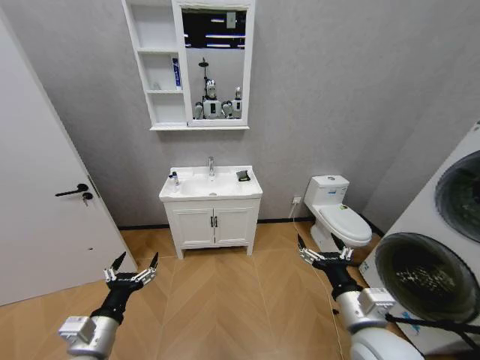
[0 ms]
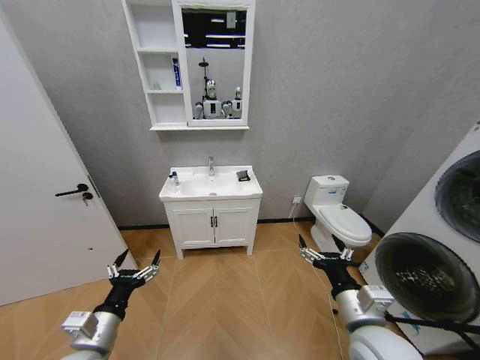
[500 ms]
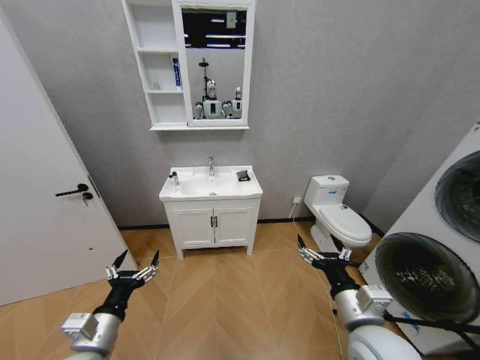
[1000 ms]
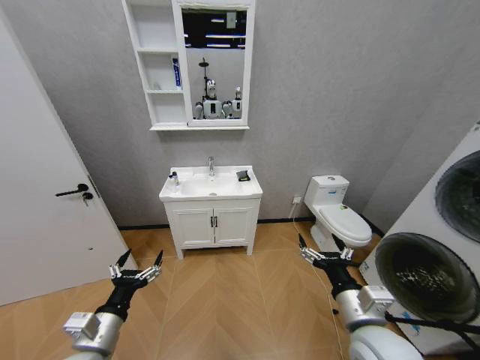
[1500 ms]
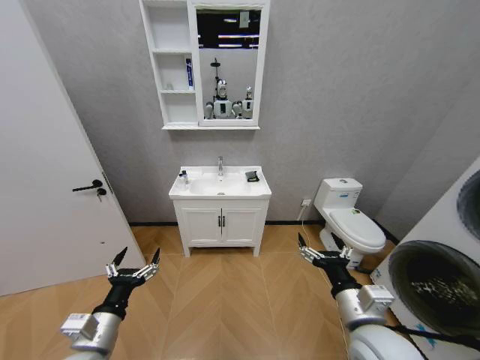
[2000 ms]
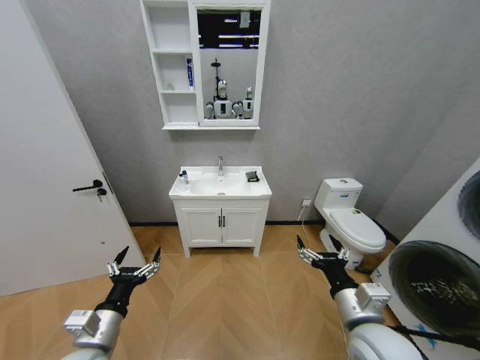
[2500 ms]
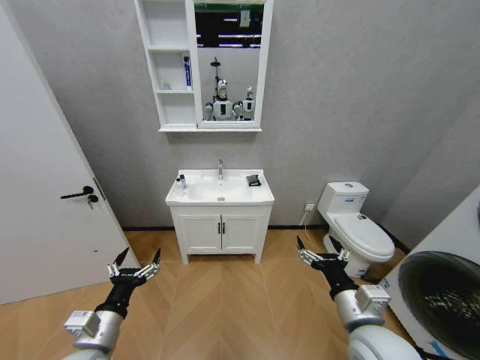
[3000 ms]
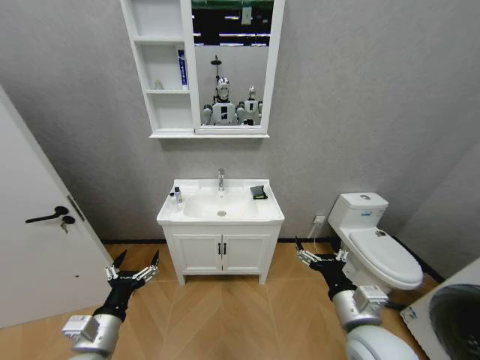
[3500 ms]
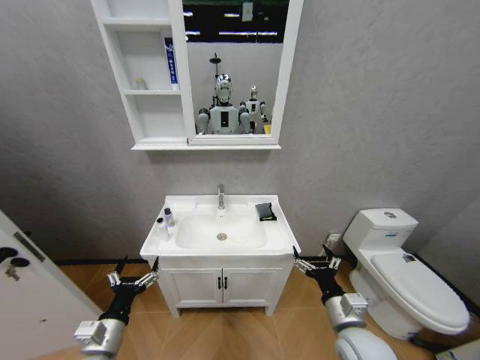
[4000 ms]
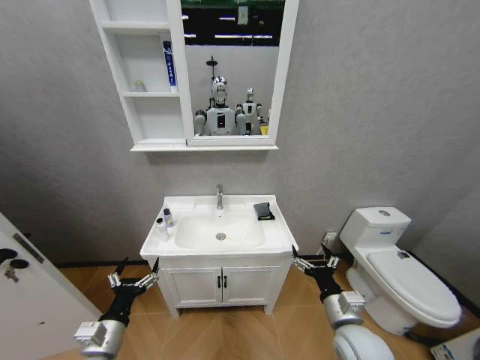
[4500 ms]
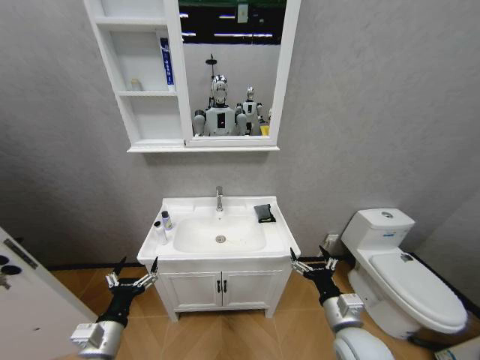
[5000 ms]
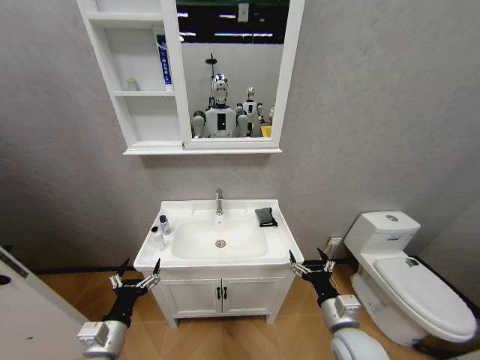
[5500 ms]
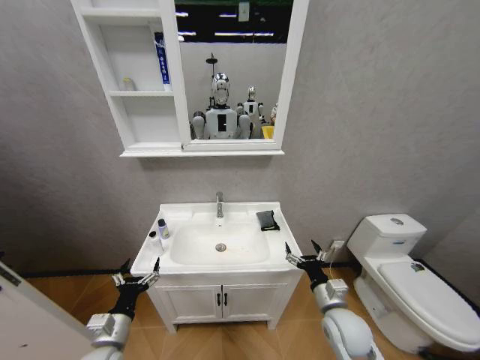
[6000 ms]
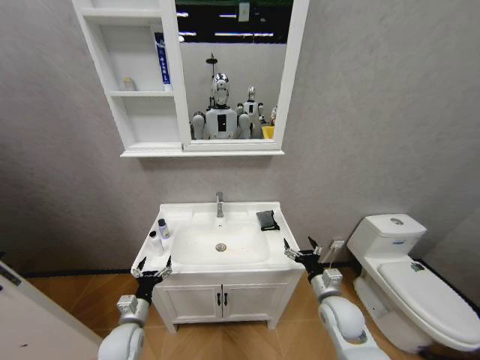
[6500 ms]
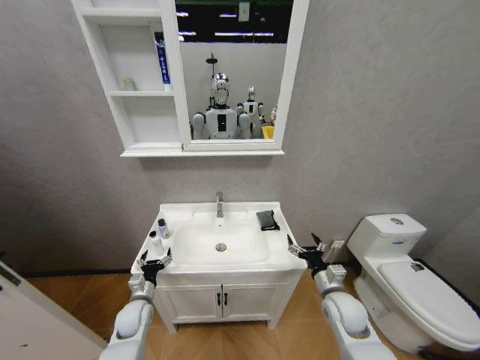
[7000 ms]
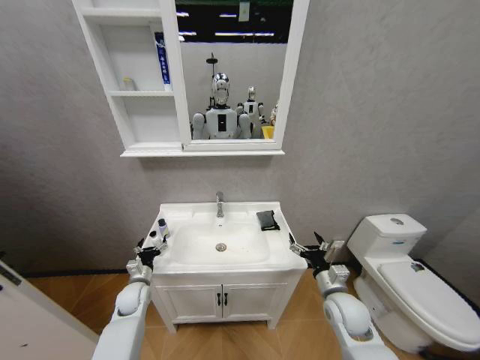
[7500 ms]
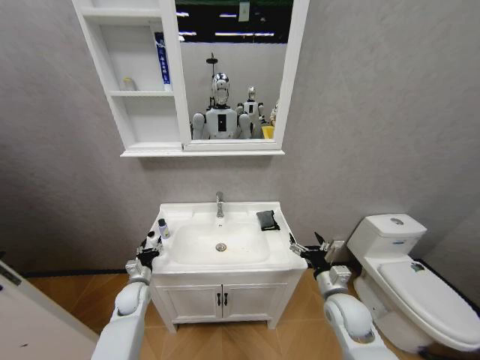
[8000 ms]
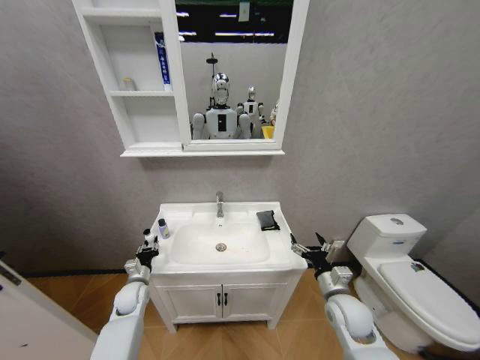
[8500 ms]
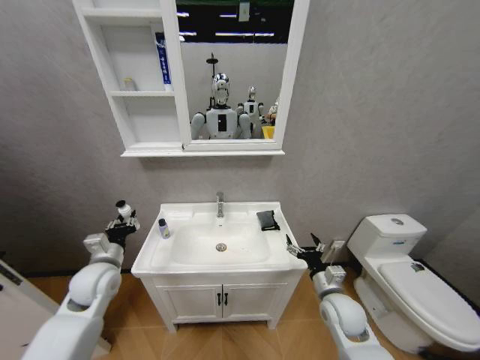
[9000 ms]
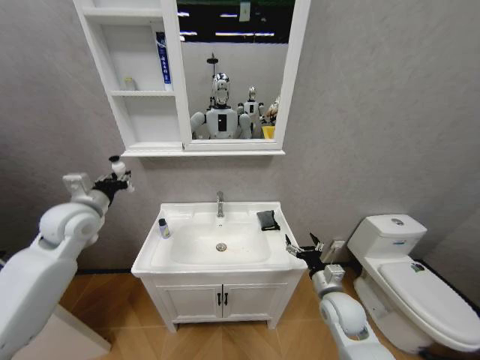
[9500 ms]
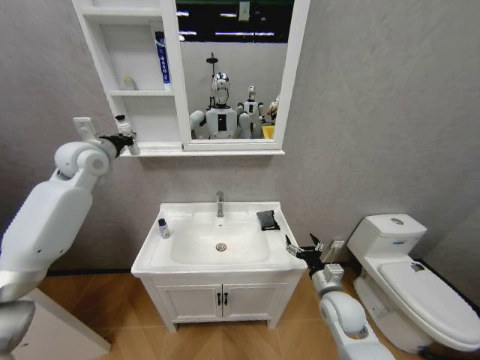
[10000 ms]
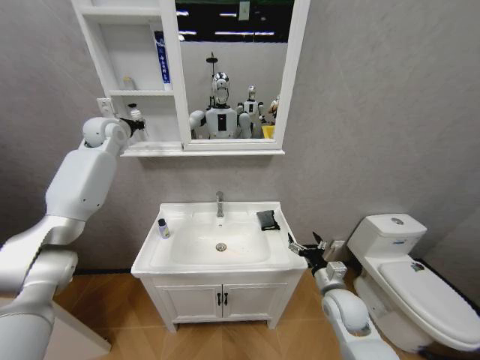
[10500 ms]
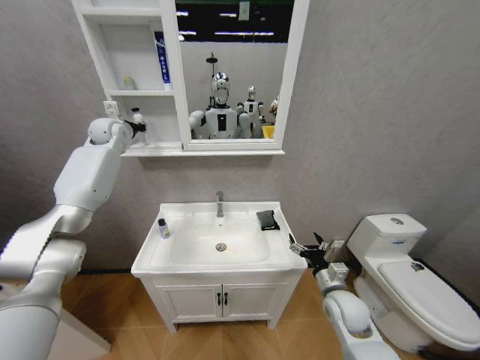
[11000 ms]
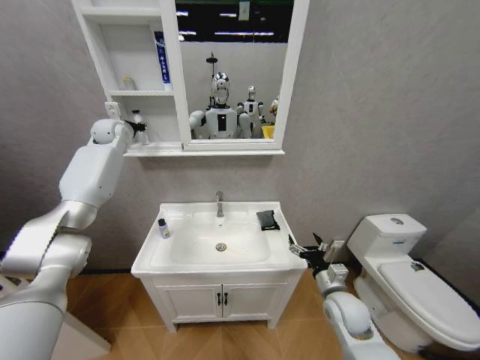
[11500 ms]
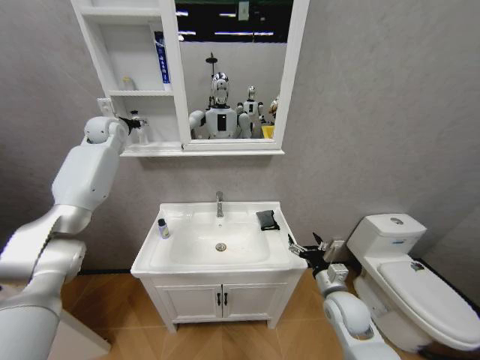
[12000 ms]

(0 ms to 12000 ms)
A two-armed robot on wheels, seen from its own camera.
Task of the whole recording: Move facial cleanser and shampoo from washbasin to cabinet, then wipe washbasin with towel.
2000 ms - 4000 ms: The right gripper goes about 10 cm downward.
4000 ms - 6000 ms: The right gripper changes place by some 5 cm.
6000 ms - 8000 ms: The left gripper shifts roughly 20 cm forward and downward, and closes its fingers.
8000 ms - 10000 ms: The left gripper shifts roughly 40 cm upward, and closes.
10000 ms - 12000 ms: The left gripper moves forward, about 15 cm, and opens its fingers.

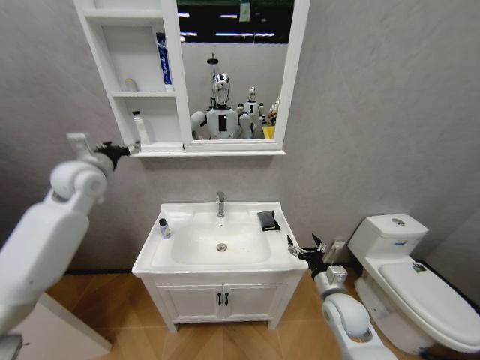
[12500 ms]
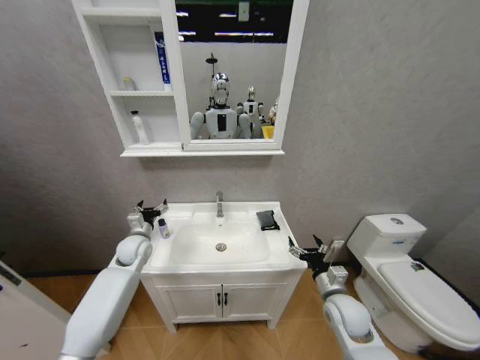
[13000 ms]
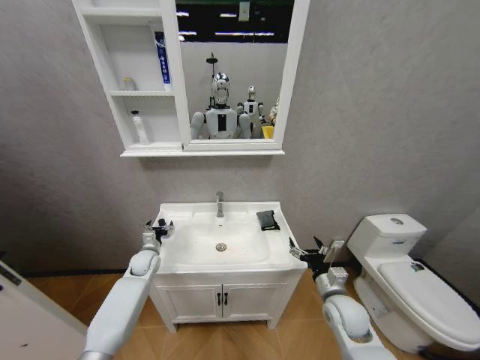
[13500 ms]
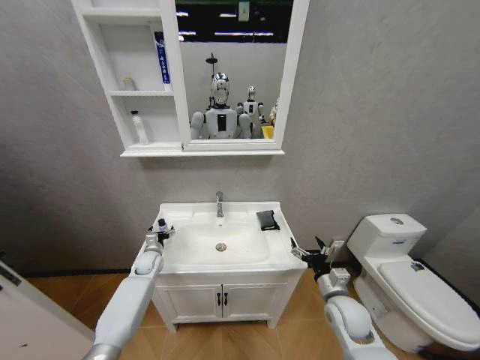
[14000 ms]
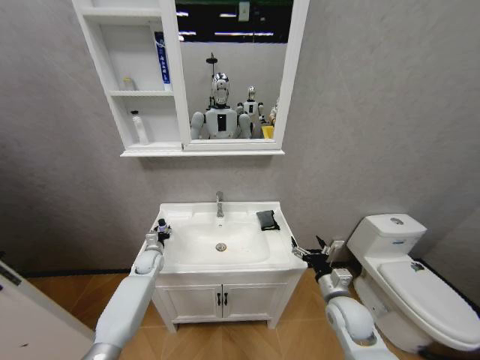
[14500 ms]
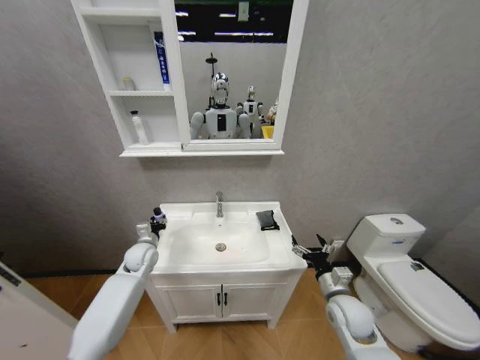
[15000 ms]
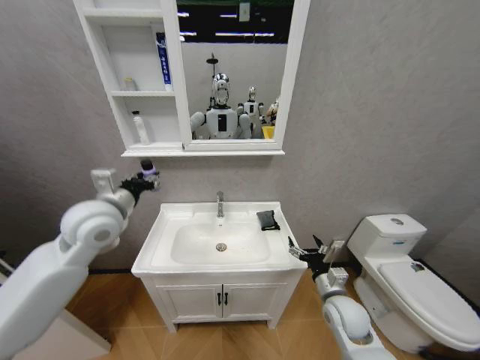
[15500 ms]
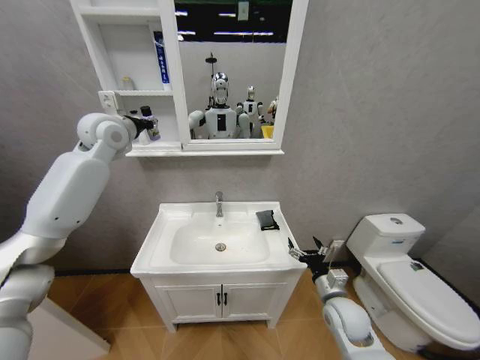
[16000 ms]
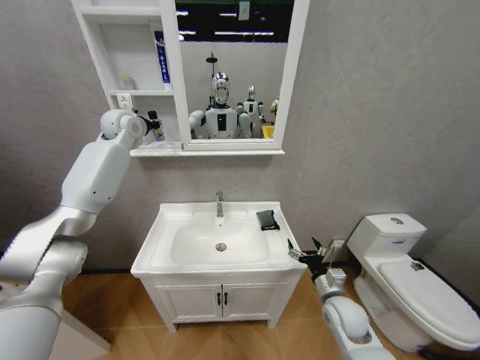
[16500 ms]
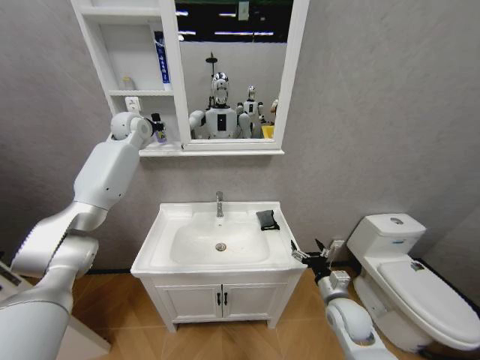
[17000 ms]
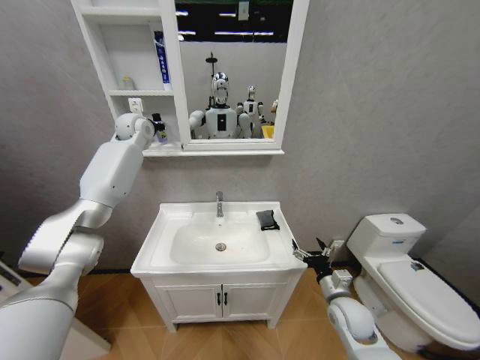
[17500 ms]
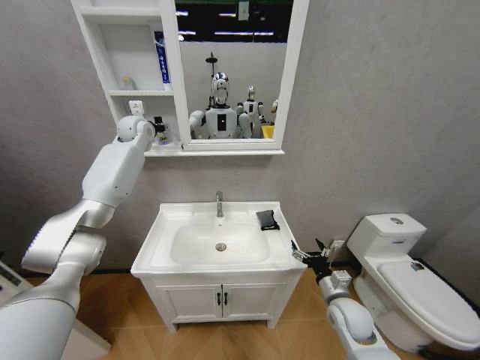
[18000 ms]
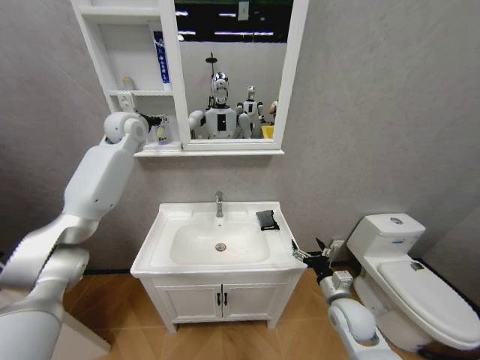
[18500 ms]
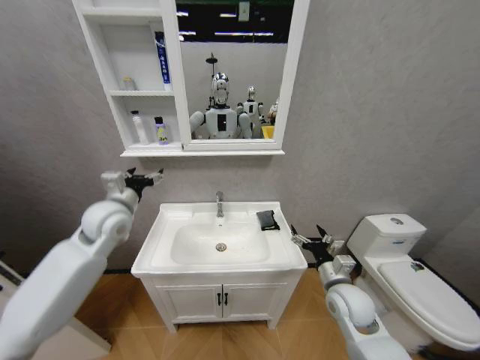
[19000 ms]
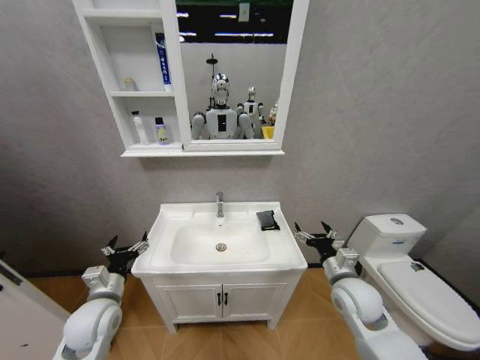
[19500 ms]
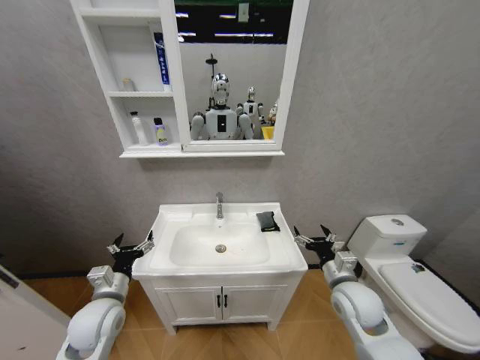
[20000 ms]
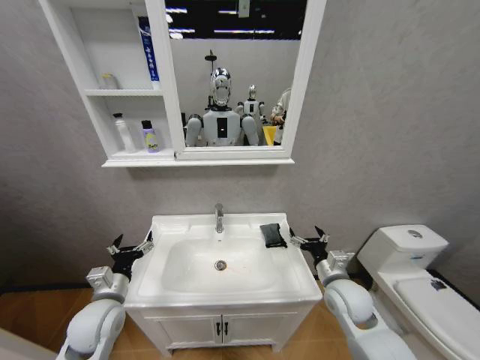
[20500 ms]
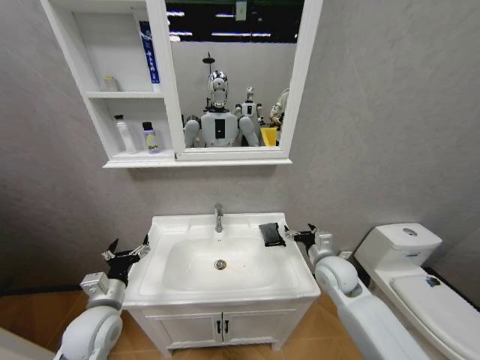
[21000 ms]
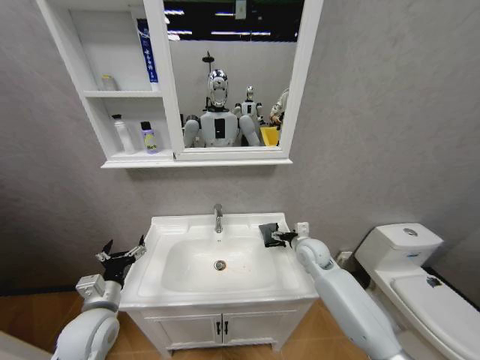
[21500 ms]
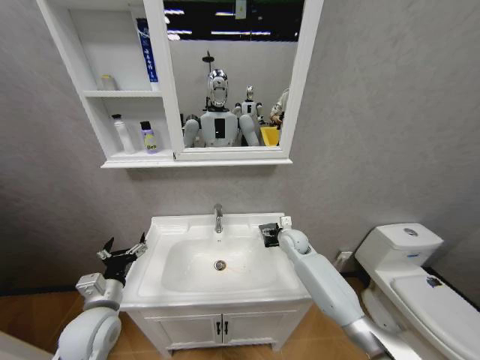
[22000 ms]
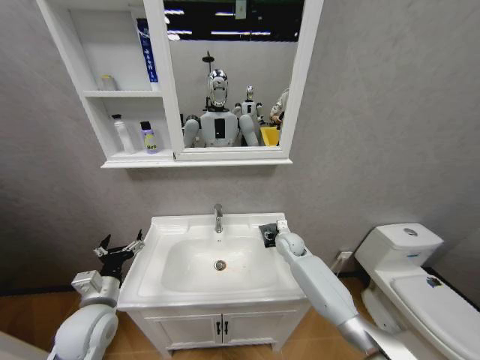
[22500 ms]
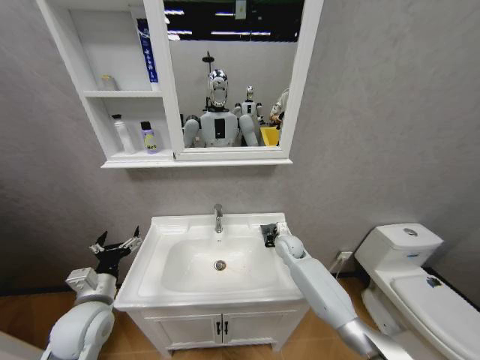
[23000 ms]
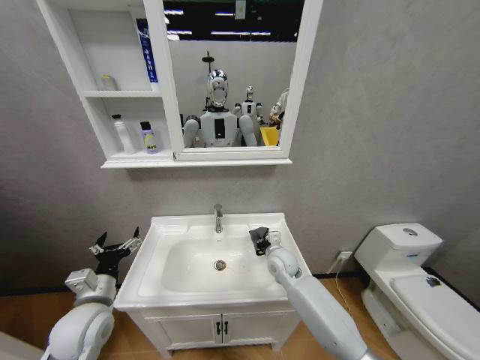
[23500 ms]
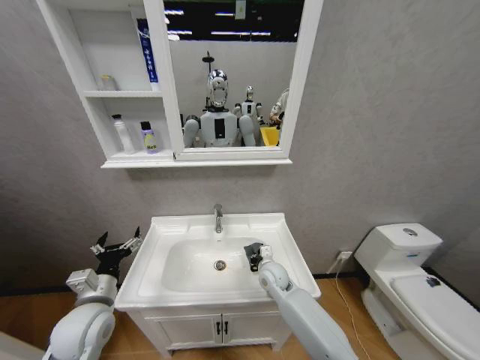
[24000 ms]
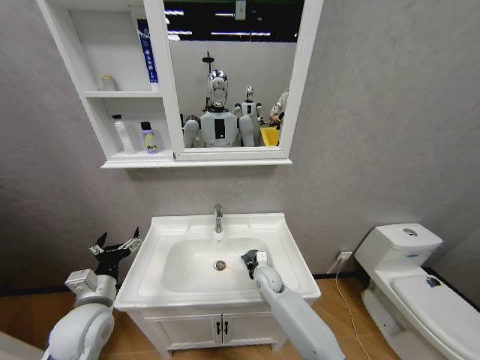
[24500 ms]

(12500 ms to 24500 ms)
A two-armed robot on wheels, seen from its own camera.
Task of the whole recording: Move facial cleanser and shampoo from washbasin to cabinet, then wipe washbasin with towel.
12500 ms - 14500 ms: The left gripper goes some 35 cm downward, and closes its fingers.
14500 ms - 16500 ms: The left gripper shifts approximately 50 cm upward.
16500 ms - 18500 ms: The left gripper opens.
18500 ms - 20500 ms: The left gripper goes approximately 50 cm backward and downward. The right gripper goes roughly 5 cm upward.
20500 ms - 22500 ms: The right gripper is displaced forward by about 20 cm, and closes.
22500 ms - 24500 ms: The right gripper heads backward, to the left and downward, covering roughly 15 cm, and closes its fingers.

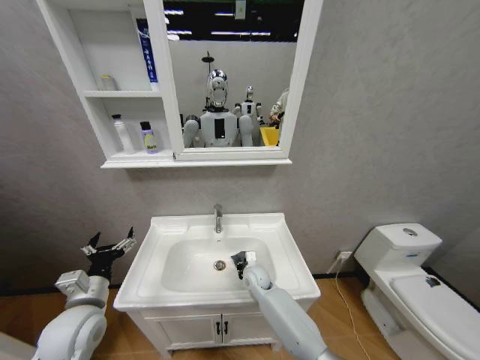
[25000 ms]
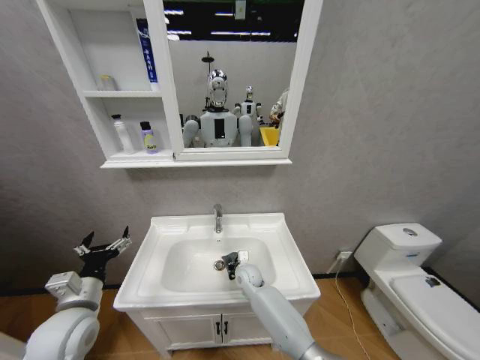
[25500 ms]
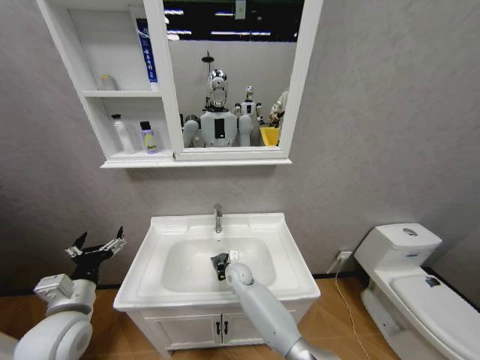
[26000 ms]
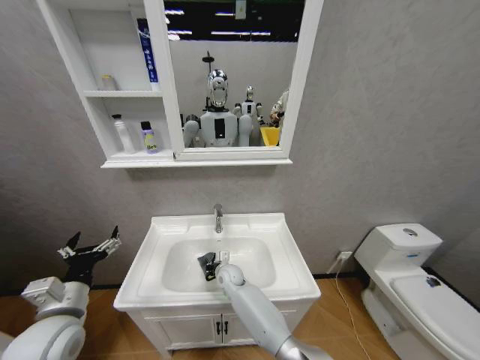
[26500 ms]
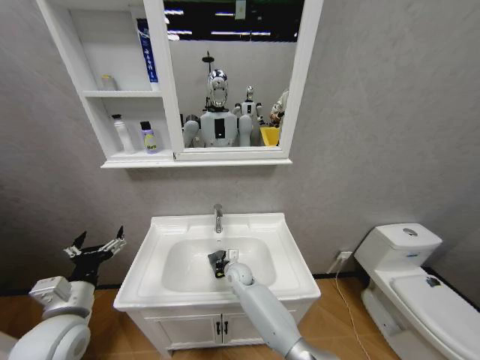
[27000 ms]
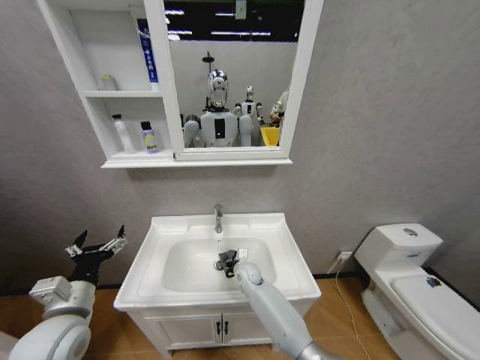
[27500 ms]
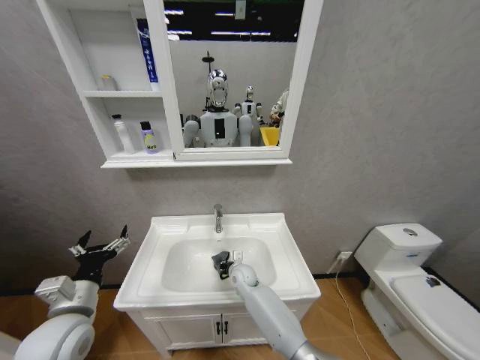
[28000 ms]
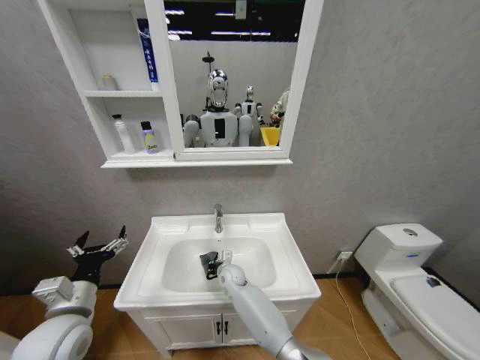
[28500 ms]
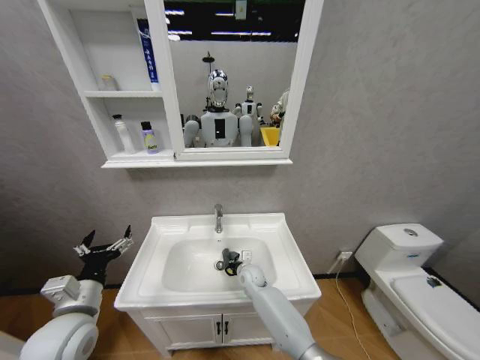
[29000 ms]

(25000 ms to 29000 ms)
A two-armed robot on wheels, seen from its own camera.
Task of the whole recording: Move facial cleanser and shampoo from washbasin to cabinet, then wipe washbasin with towel.
25000 ms - 27000 ms: The right gripper is displaced to the left by about 5 cm.
27000 ms - 29000 ms: The right gripper moves approximately 5 cm.
